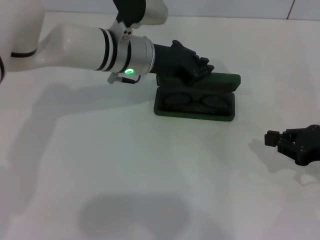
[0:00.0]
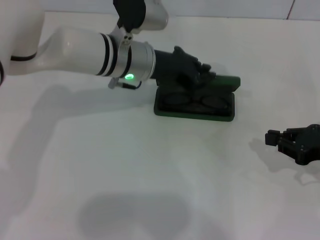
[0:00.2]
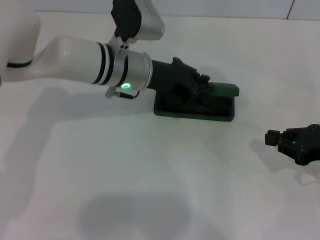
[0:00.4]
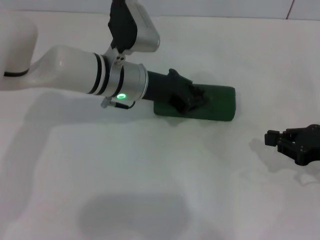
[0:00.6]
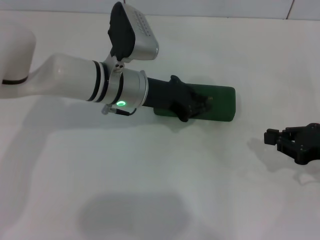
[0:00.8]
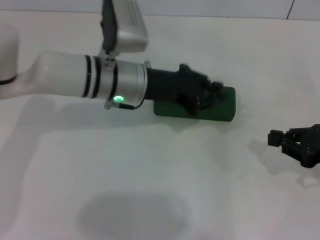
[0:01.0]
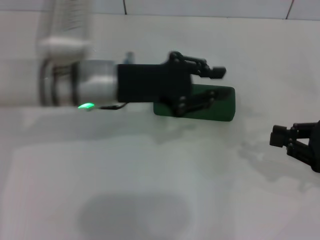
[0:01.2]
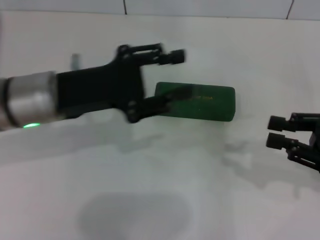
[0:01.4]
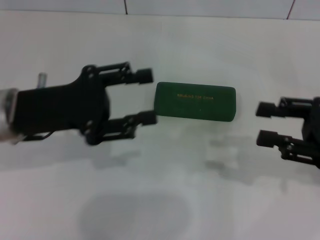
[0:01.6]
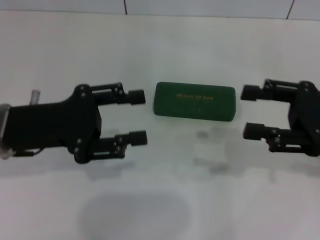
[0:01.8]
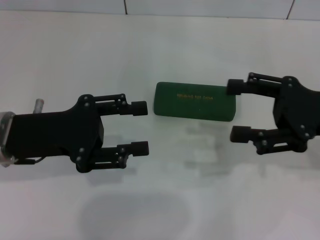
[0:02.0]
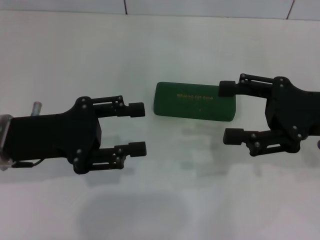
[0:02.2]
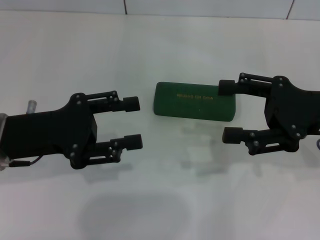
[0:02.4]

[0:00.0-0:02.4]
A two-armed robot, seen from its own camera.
0:00.0 to 0:01.2: The left gripper moves backward, some 5 cm.
0:01.2 to 0:02.4: The left gripper moves to the left and backward, approximately 15 cm, and opens its fingers, while the right gripper is displaced to the left and upward by approximately 10 cm, and opens.

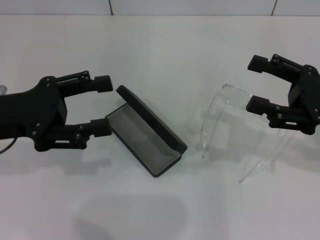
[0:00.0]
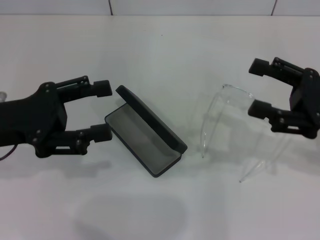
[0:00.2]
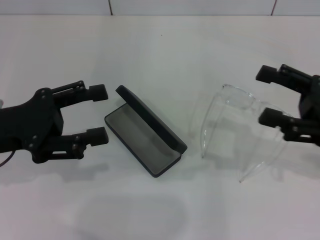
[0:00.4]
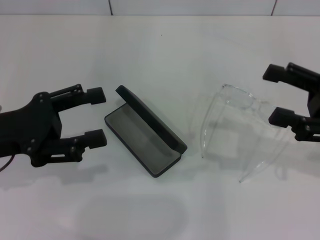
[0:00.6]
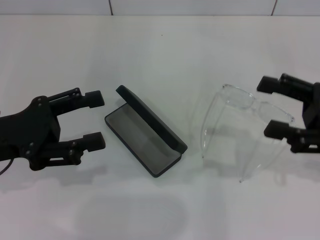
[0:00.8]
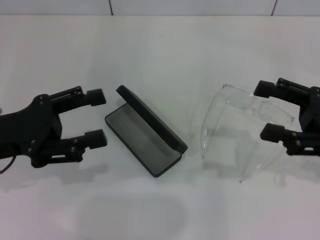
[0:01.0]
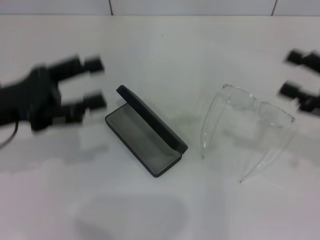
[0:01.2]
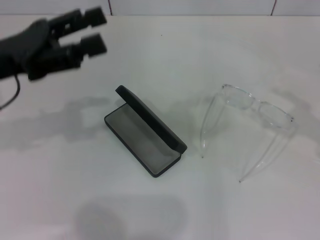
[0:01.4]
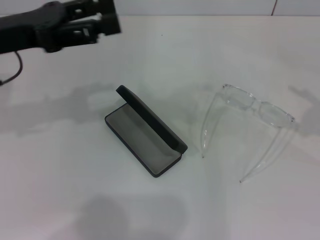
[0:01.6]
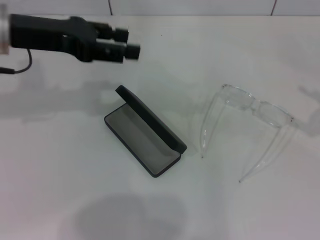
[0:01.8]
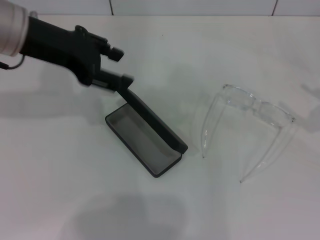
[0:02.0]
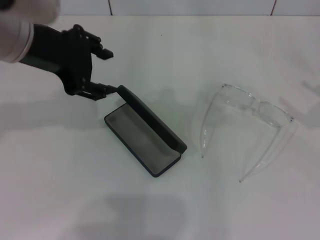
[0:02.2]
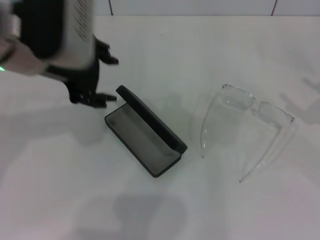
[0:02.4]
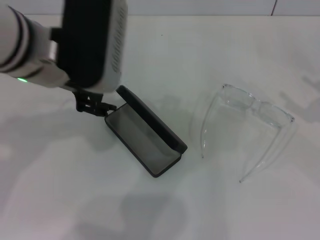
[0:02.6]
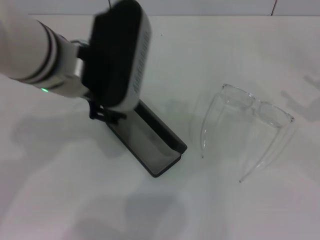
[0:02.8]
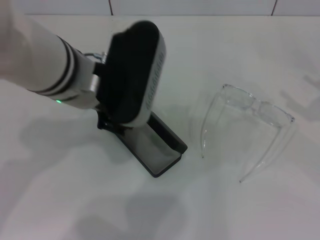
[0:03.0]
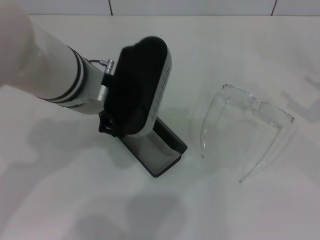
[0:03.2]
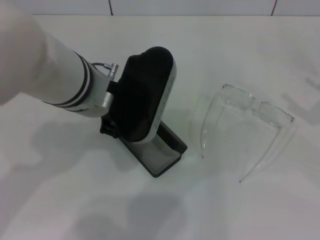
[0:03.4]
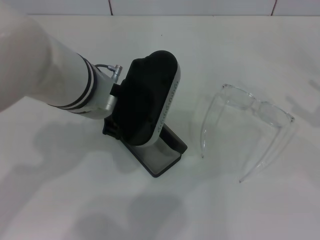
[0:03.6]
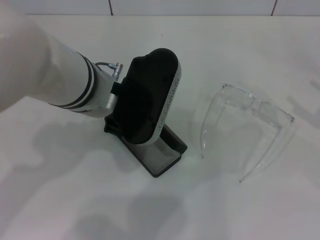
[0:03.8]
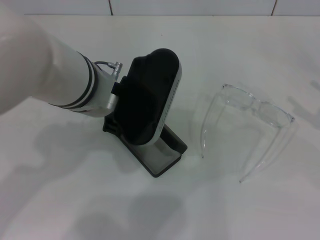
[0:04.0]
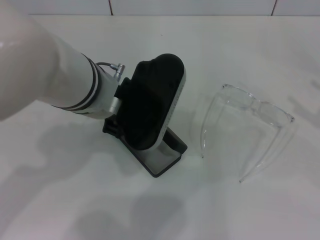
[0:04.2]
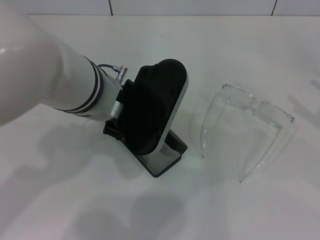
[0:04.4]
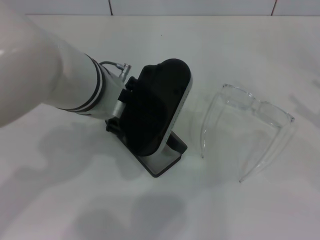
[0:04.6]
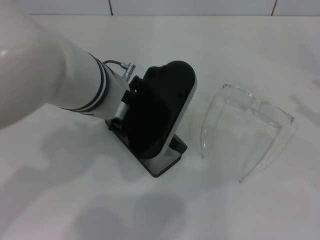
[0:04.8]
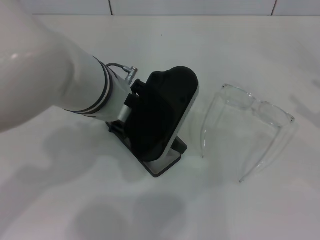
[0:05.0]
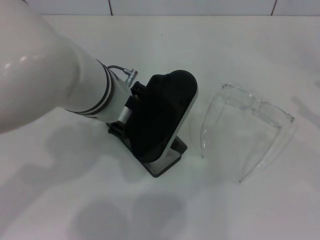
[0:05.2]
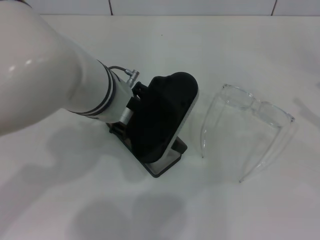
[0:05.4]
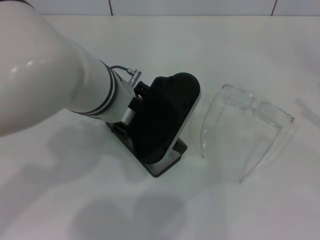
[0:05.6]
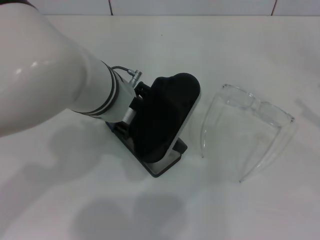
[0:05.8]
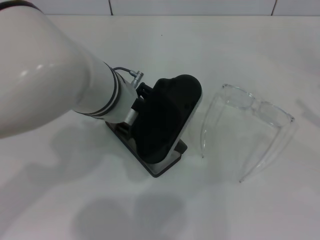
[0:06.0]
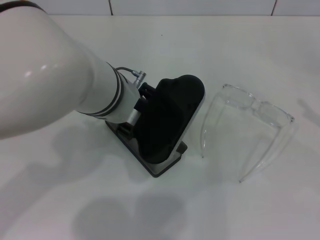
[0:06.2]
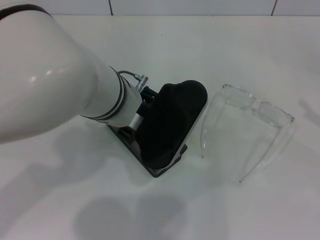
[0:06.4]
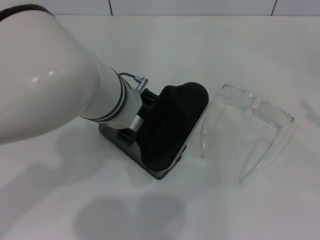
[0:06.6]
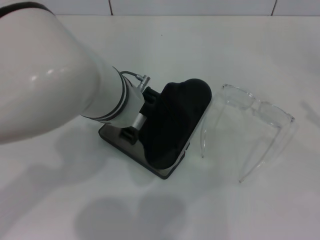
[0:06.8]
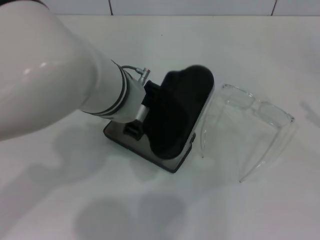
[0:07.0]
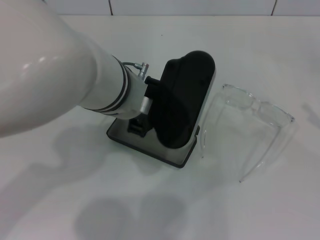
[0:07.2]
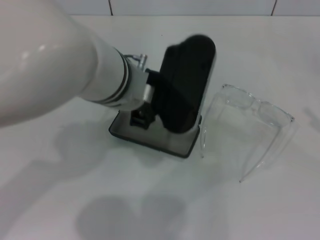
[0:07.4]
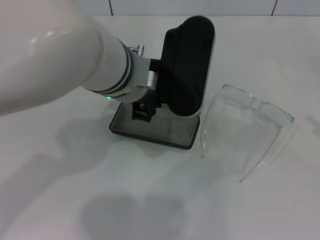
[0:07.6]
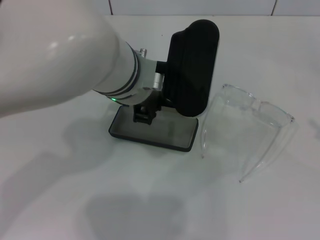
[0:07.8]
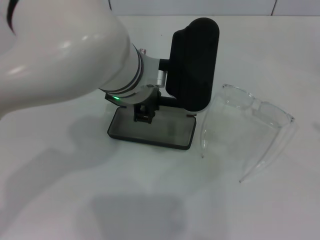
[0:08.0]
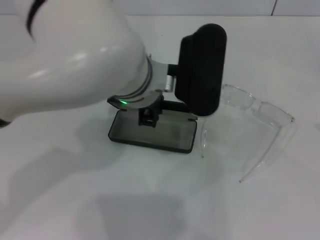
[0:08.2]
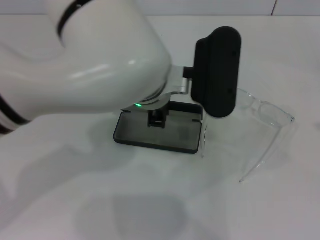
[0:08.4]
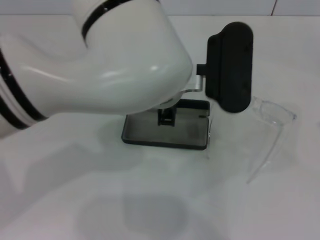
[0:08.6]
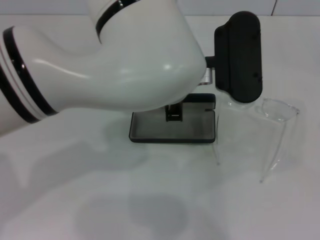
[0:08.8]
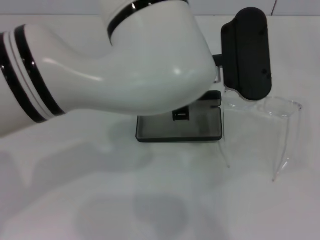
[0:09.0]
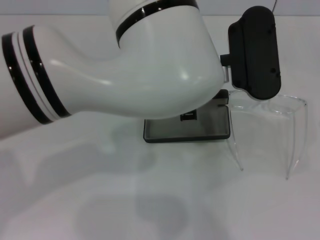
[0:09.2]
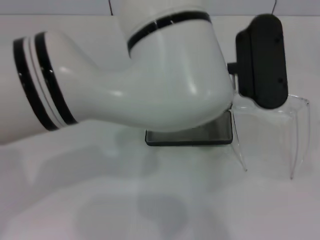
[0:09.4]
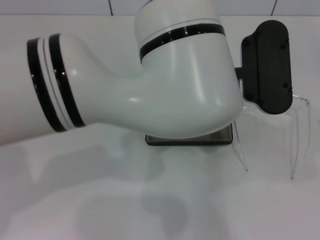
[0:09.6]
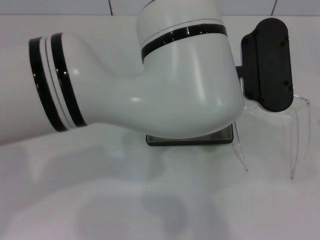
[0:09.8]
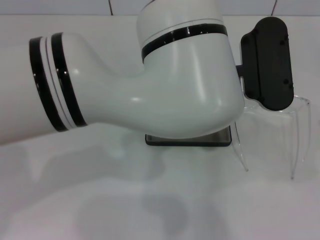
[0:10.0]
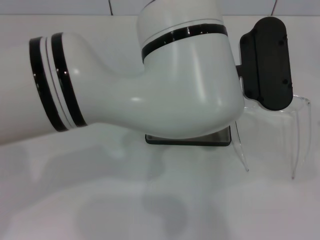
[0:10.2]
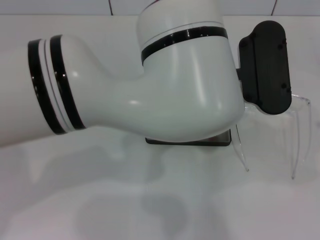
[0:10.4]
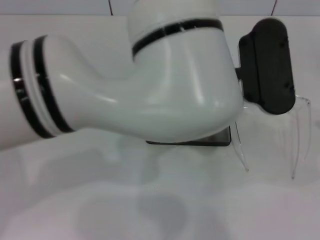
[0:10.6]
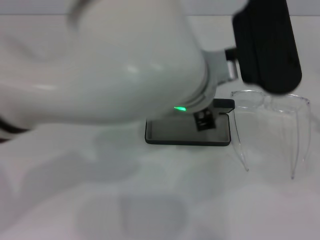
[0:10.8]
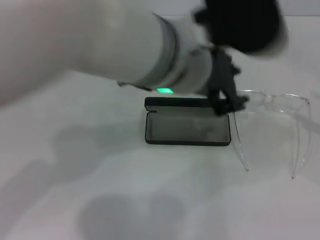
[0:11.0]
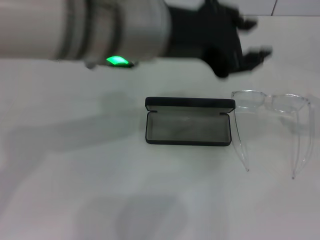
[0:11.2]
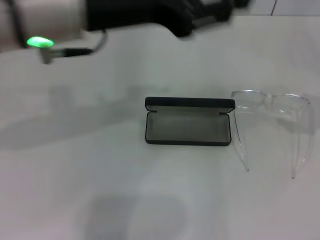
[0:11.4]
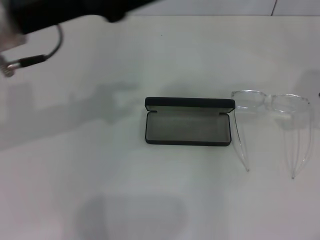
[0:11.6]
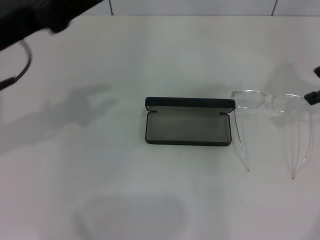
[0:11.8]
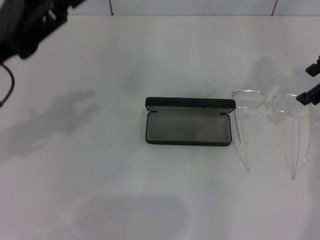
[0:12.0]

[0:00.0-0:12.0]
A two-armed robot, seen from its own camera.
Step, 0:00.0 to 0:06.4: Grab the glasses case with your left hand.
Step, 0:06.6 to 0:10.0: Place the glasses case in the center of the table with your left hand.
0:00.0 to 0:01.6: The left gripper shifts some 10 cm forward and upward. The right gripper is displaced to the right by about 10 cm.
0:01.6 to 0:03.0: The left gripper goes approximately 15 cm to the right.
0:03.0 to 0:06.0: The grippers move only a little.
0:06.0 to 0:07.6: The left gripper closes its fingers.
0:07.6 to 0:09.0: The left gripper travels to the right by roughly 5 cm.
0:10.4 to 0:12.0: The right gripper shifts roughly 30 cm forward, to the left and upward, while the left gripper travels to the left by about 30 cm.

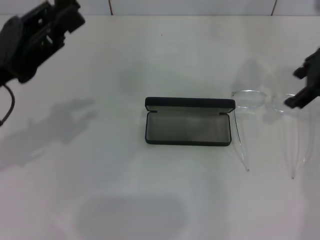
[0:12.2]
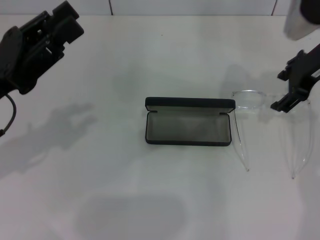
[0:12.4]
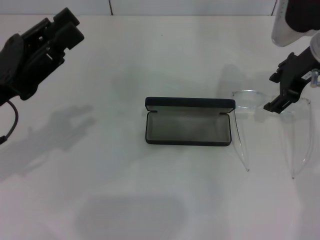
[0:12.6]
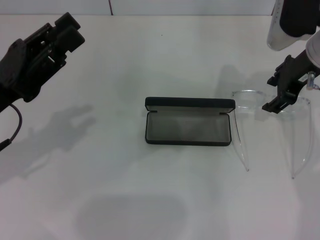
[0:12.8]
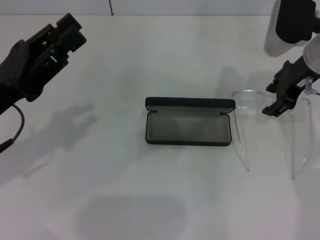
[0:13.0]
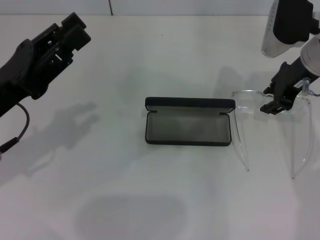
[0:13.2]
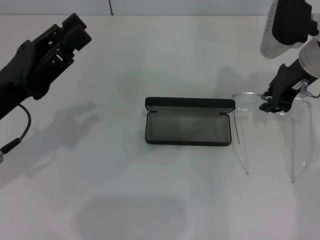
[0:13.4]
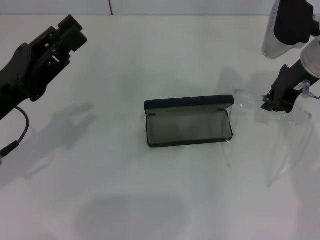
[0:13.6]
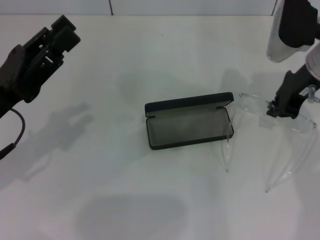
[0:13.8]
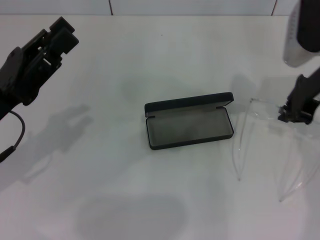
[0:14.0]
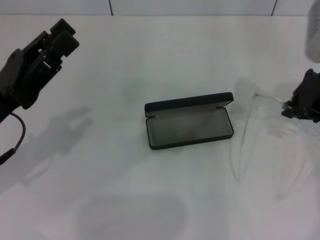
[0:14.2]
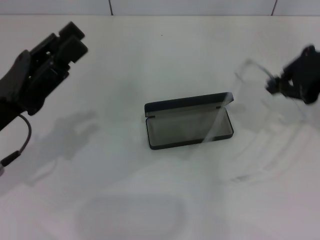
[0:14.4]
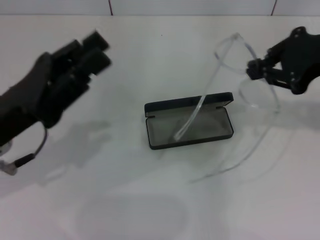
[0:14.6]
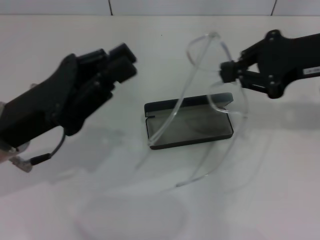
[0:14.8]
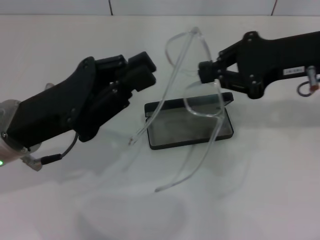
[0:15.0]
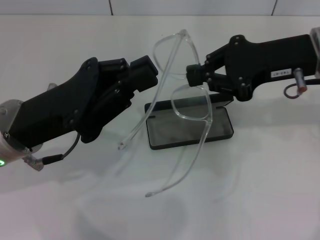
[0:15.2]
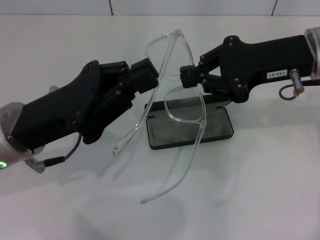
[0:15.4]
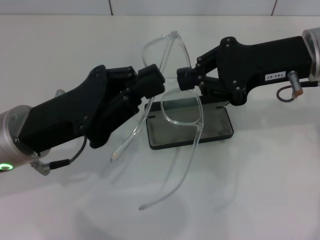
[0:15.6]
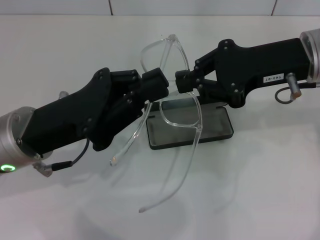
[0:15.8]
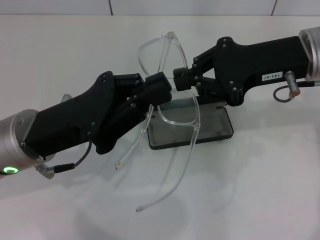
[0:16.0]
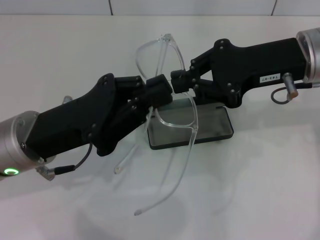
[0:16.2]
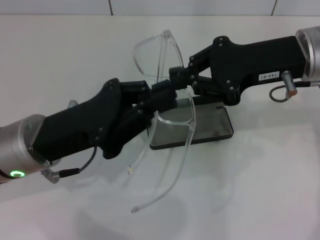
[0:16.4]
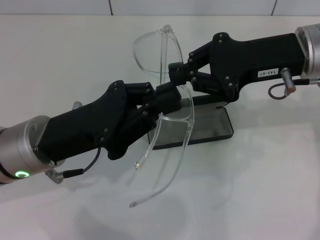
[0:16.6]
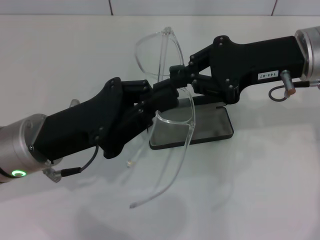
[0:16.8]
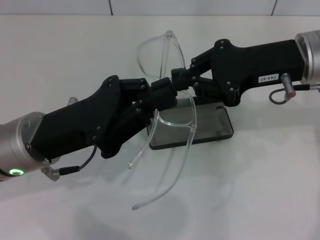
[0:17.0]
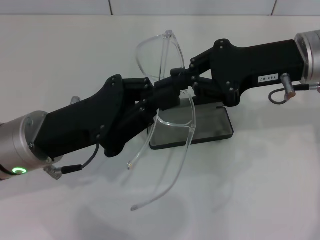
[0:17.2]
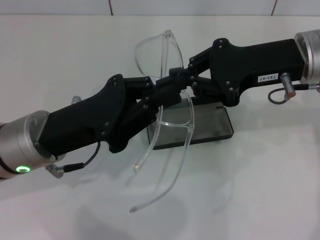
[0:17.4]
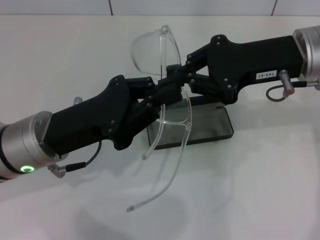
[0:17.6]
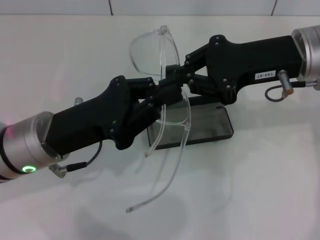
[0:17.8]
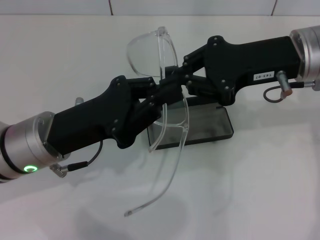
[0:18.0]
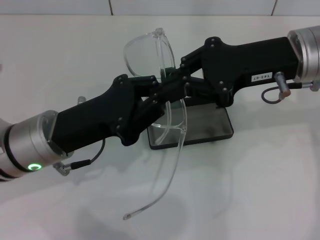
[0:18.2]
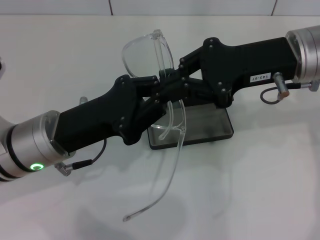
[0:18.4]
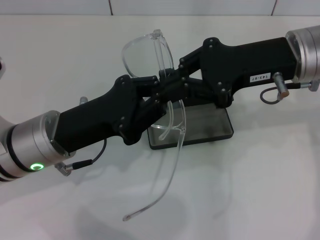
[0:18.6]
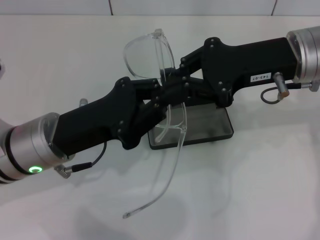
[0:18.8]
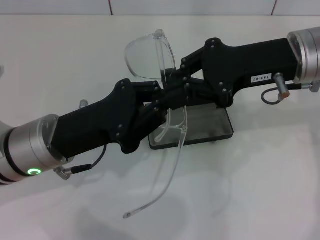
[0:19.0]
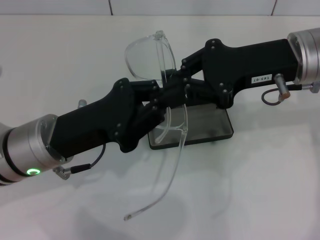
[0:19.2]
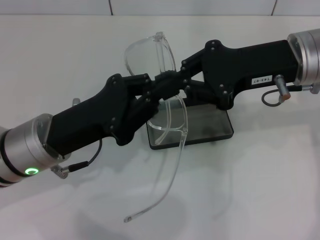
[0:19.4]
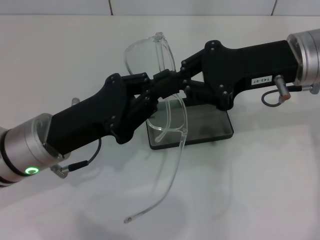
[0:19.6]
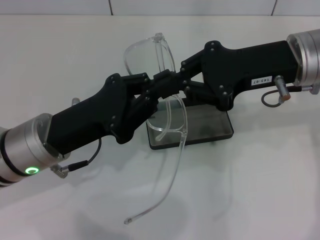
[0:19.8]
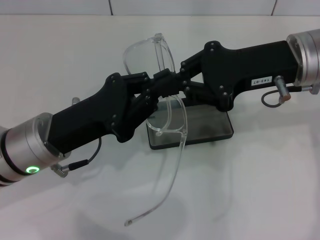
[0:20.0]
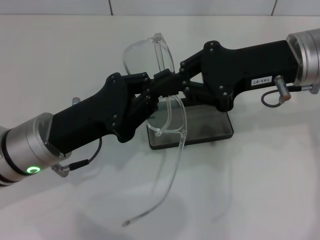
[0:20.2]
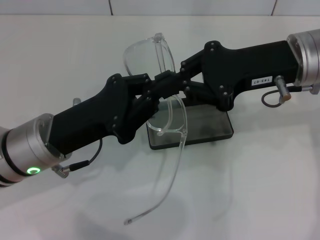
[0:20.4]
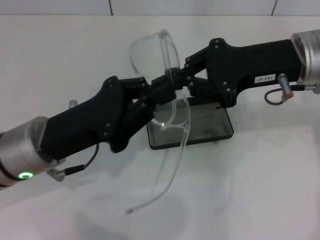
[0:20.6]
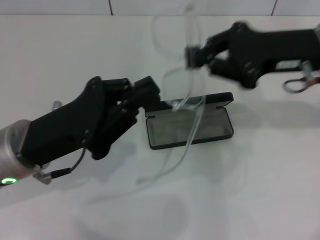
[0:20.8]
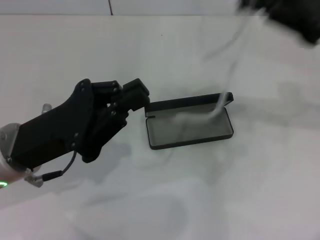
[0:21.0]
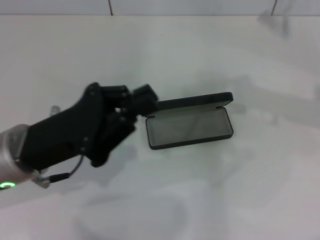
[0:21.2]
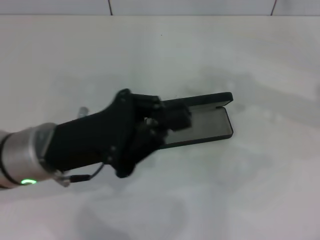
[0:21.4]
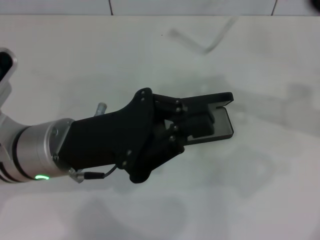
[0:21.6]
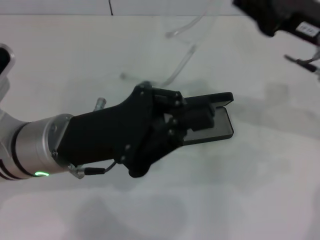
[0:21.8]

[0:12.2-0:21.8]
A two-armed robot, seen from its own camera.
0:12.2 to 0:13.8: The right gripper travels downward by some 5 cm, and closes up.
0:13.8 to 0:15.4: The left gripper travels to the right by approximately 5 cm, and closes up. The right gripper heads backward, covering some 5 cm.
0:15.4 to 0:18.6: The grippers move only a little.
0:18.6 to 0:20.2: Neither gripper changes place.
0:20.2 to 0:21.8: The right gripper travels to the right and back again, about 15 cm each way.
